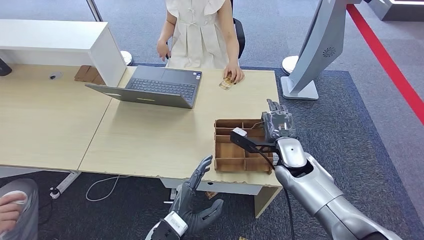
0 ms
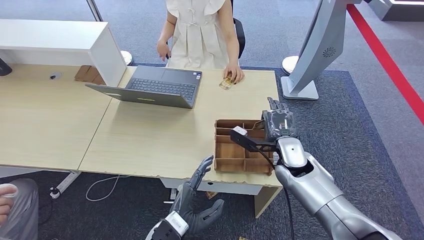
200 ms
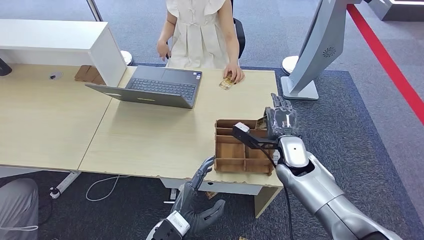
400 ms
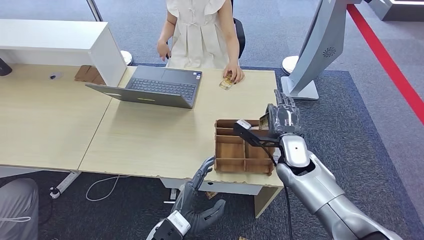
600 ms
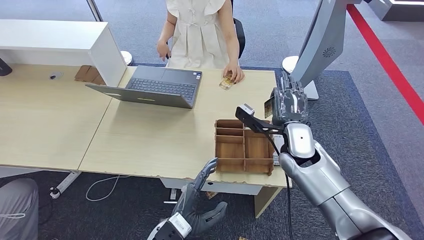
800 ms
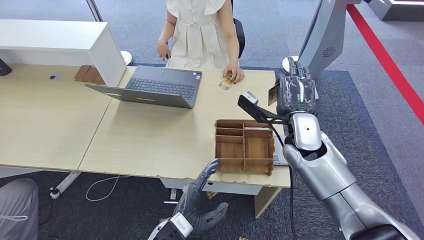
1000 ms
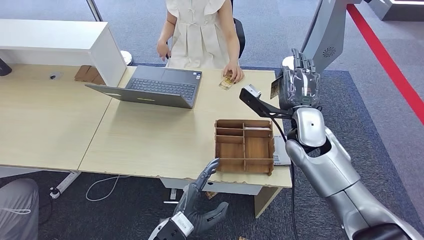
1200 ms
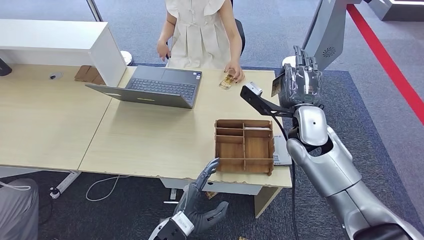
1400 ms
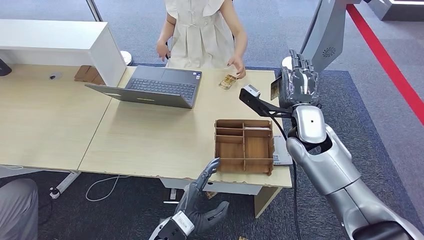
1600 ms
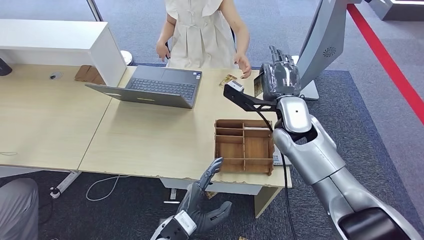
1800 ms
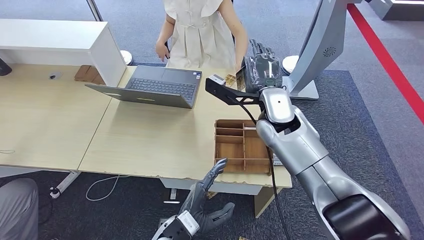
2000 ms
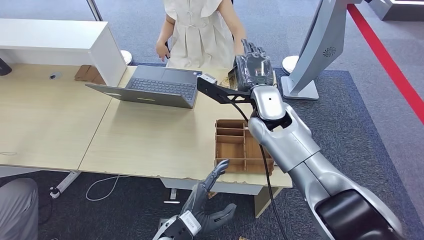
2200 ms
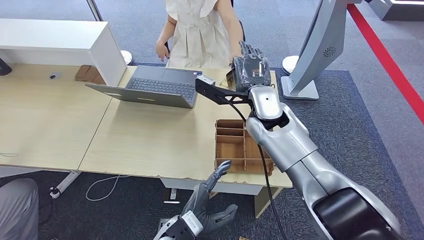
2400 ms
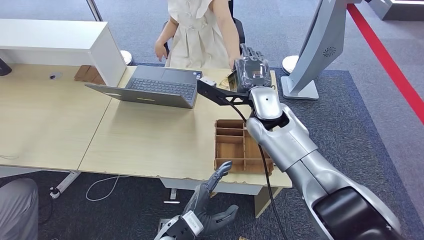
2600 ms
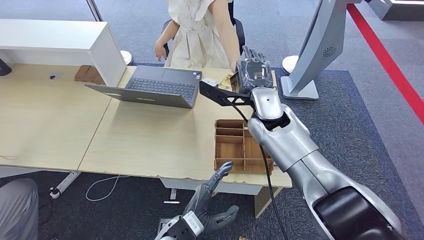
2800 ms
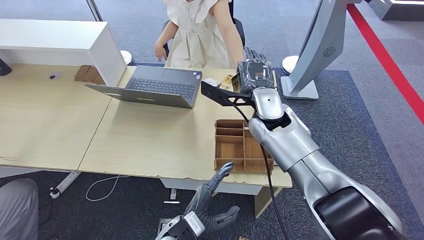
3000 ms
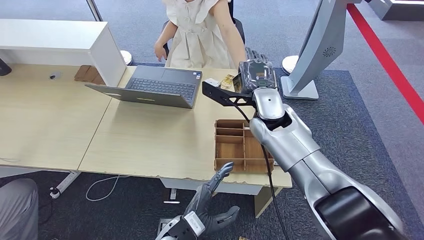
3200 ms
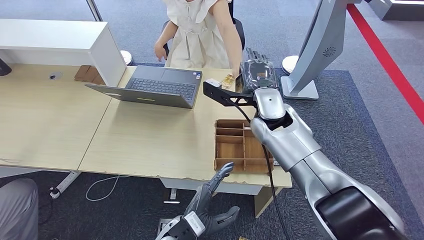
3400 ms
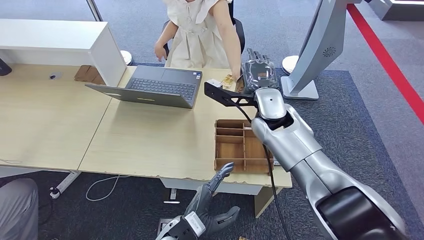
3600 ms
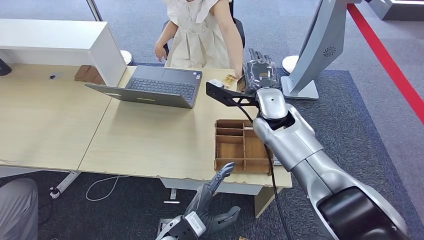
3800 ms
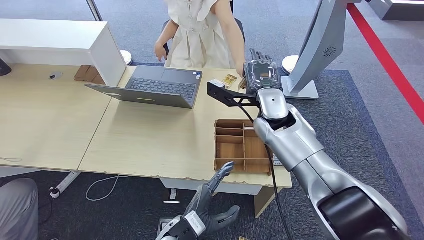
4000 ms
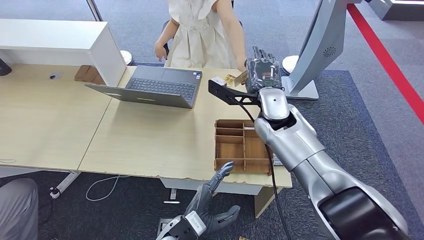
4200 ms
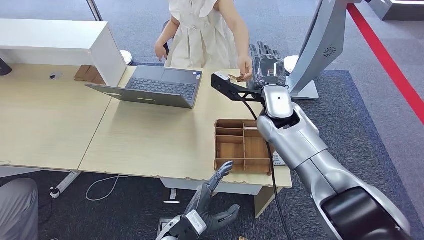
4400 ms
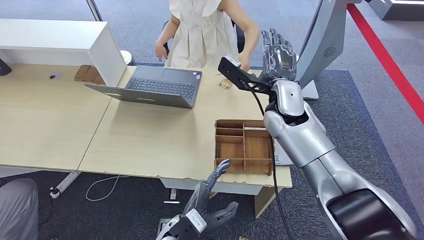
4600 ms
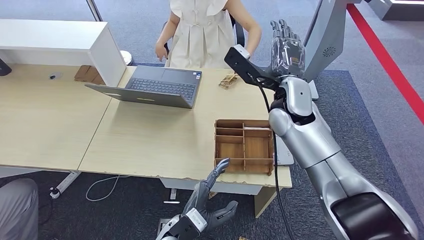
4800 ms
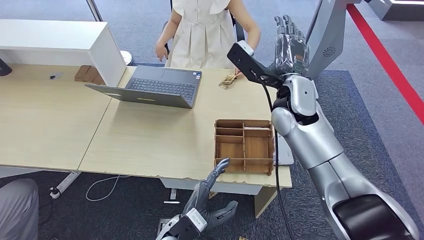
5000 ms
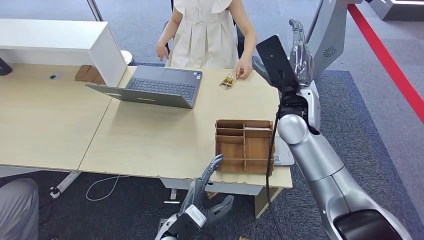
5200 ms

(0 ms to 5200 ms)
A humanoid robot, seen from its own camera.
Step, 0 ms - 1600 ms: Pick up the room key from the key card box.
Step, 1800 ms - 5200 ms: Hand the room key to the person.
0 ms - 1800 ms: The right hand moves upward, roughly 10 cm.
1800 ms - 3400 ms: The right hand changes place by some 5 cm.
3400 ms - 5200 ms: The right hand changes place by about 5 cm.
